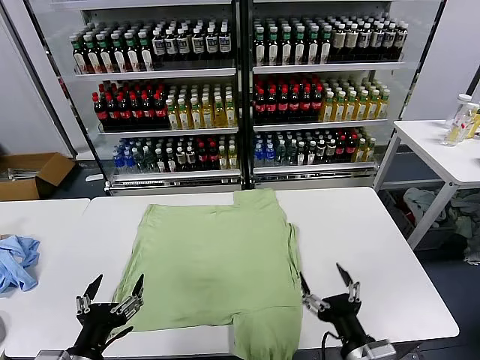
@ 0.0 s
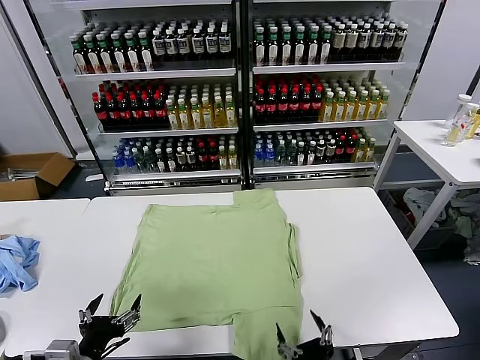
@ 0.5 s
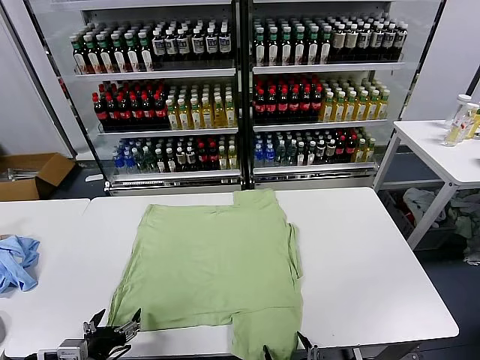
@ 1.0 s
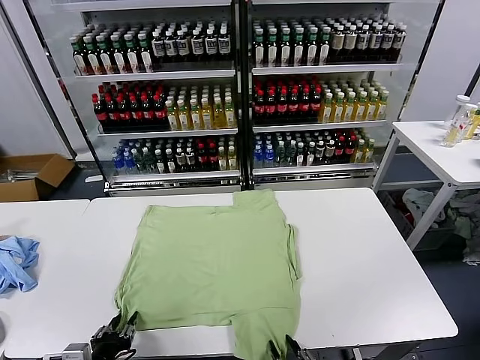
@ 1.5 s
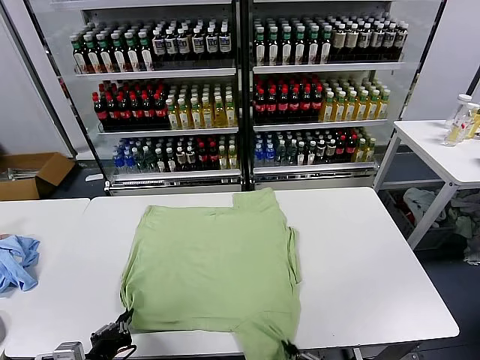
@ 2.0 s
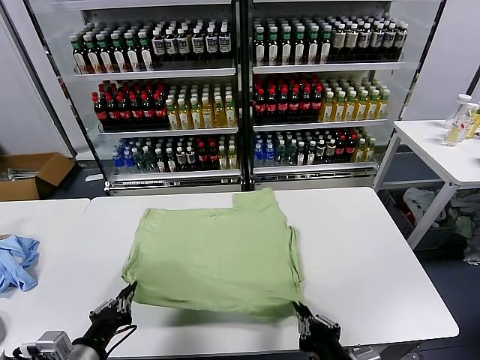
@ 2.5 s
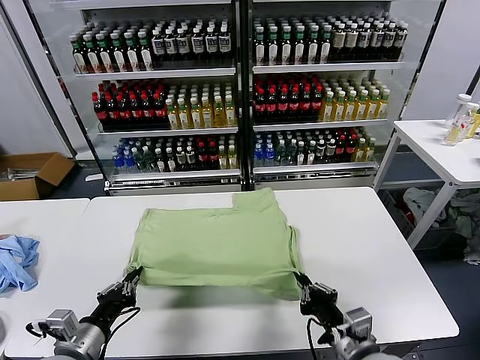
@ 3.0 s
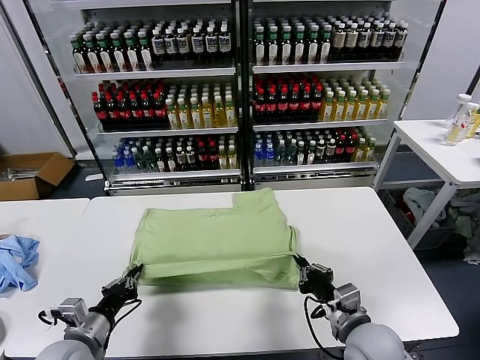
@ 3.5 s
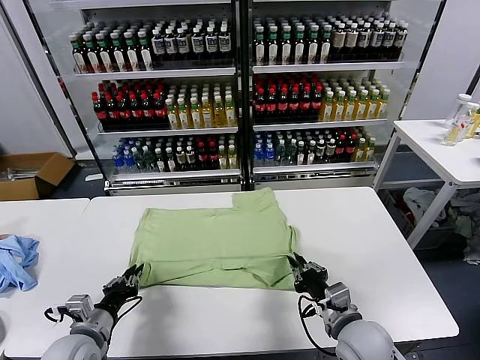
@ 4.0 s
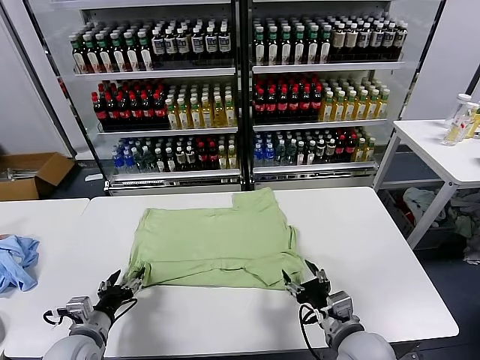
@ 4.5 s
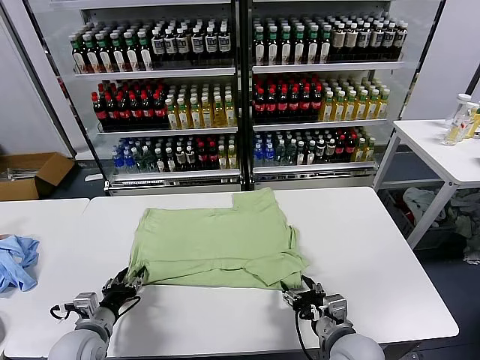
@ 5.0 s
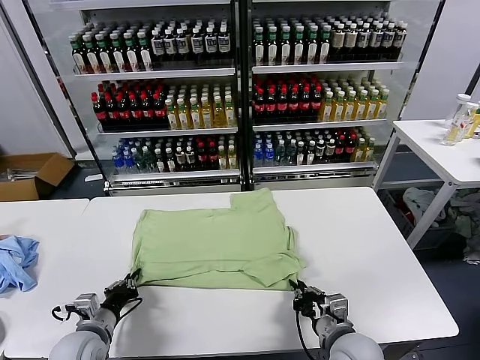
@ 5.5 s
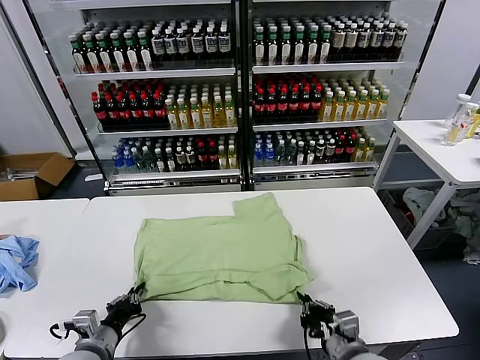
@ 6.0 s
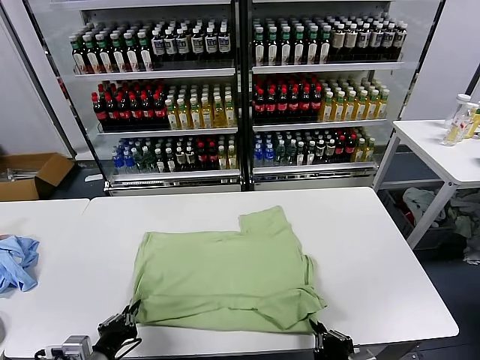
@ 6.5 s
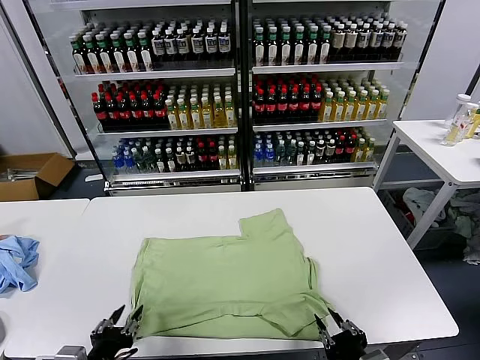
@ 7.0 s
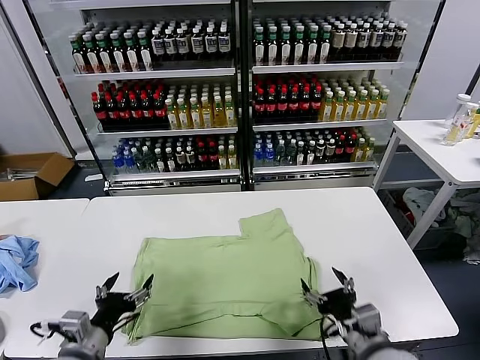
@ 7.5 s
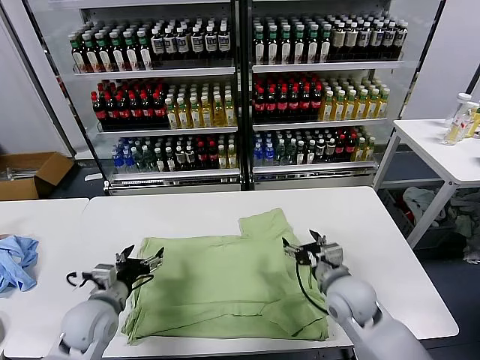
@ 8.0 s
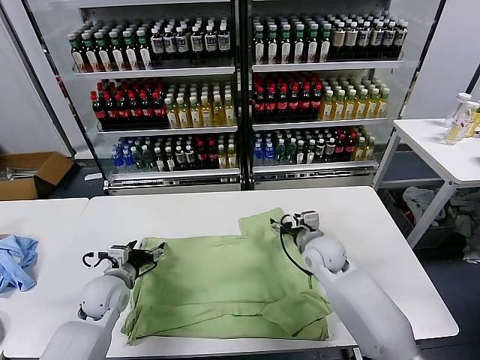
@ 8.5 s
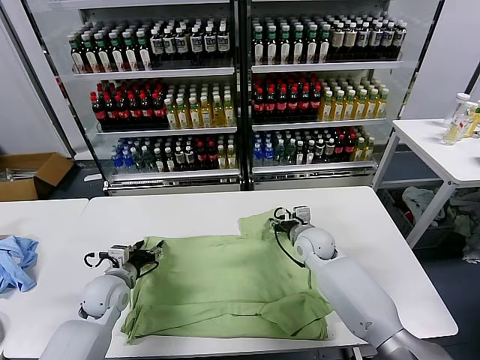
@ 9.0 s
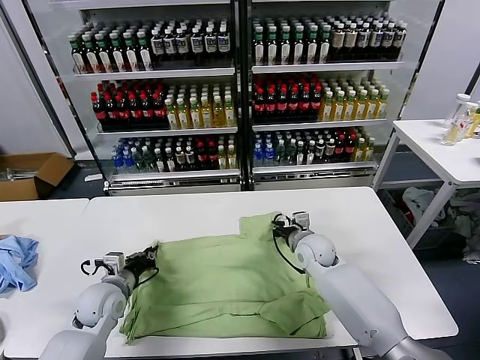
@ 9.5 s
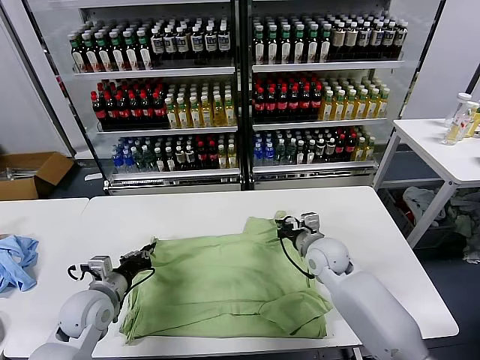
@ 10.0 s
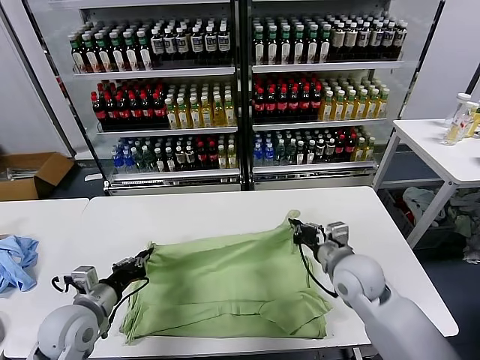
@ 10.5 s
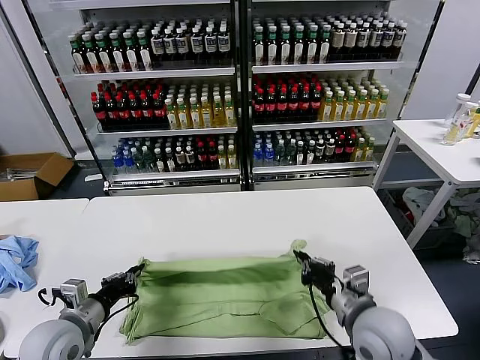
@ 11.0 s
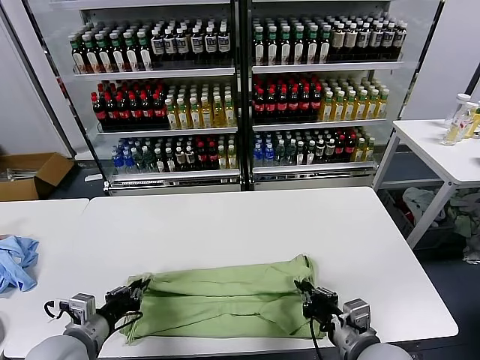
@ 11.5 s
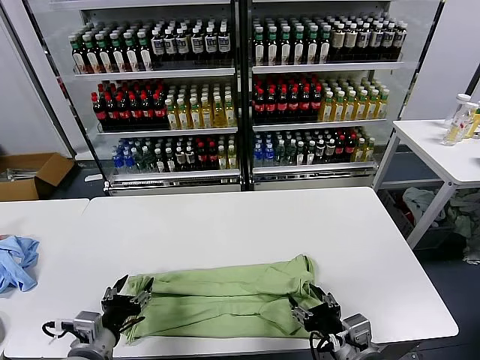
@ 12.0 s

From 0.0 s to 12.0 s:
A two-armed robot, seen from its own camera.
Task of the whole recording: fold and organize the clothes.
Step, from 0.0 s to 1.5 s: use both grippers simultaneously to clamp the lower edge of the clothing fabric.
Step, from 2.5 s to 4.0 s: use both grippers to drag the lower edge of the fabric forward and fold it over the upper edge.
Step, from 4.5 s to 7.0 s: Drag the clothes downward with both gripper.
Step, from 7.5 s to 9.5 s: use both grippers simultaneously to clamp the upper edge of the clothing fabric.
Step, from 10.0 s to 11.5 s: use both grippers to drag the upper edge of the fabric backward and fold it over the lower edge.
From 2.0 s to 4.0 s: The right gripper heads forward, covering about 15 cm. Meanwhile the left gripper travels forward by about 10 cm.
From 4.0 s to 6.0 s: The left gripper opens, then closes again. Meanwhile the right gripper moves backward, some 5 cm, and opens, then closes again.
From 6.0 s to 8.0 s: The left gripper shifts approximately 10 cm forward, and opens up. The right gripper goes about 15 cm forward, and opens its fingers.
From 8.0 s to 10.0 s: The left gripper closes up, while the right gripper travels forward by some 10 cm, and closes.
From 10.0 s to 12.0 s: The left gripper moves backward, approximately 15 cm, and opens its fingers, while the right gripper goes about 25 cm backward, and opens.

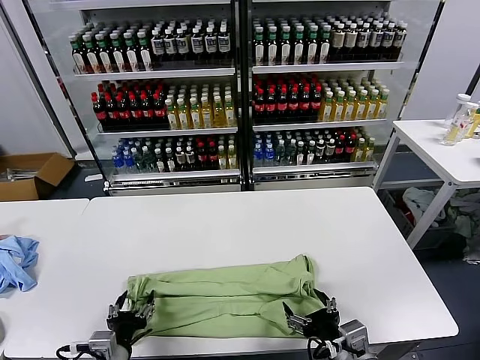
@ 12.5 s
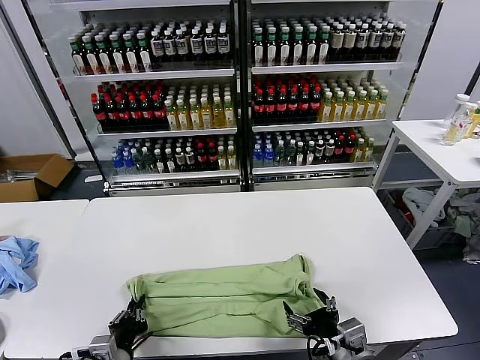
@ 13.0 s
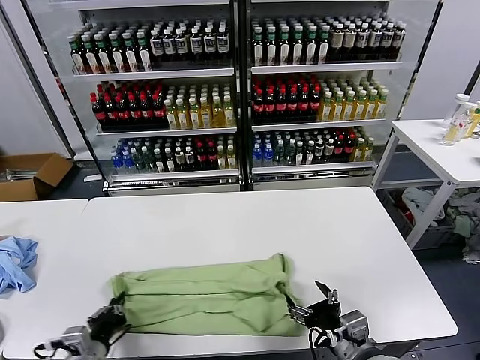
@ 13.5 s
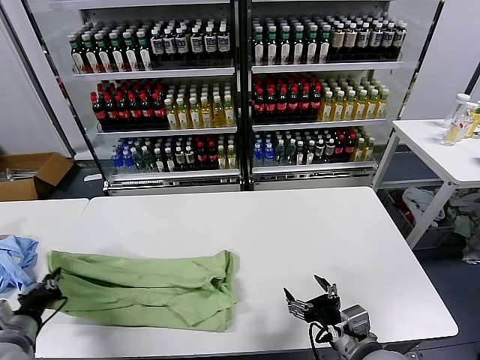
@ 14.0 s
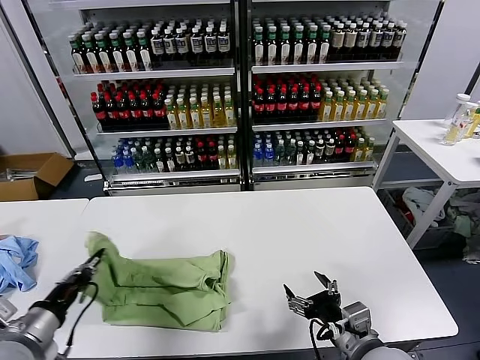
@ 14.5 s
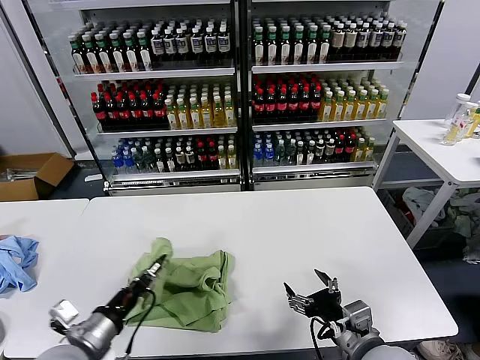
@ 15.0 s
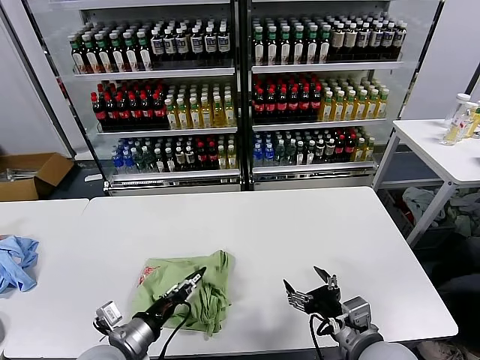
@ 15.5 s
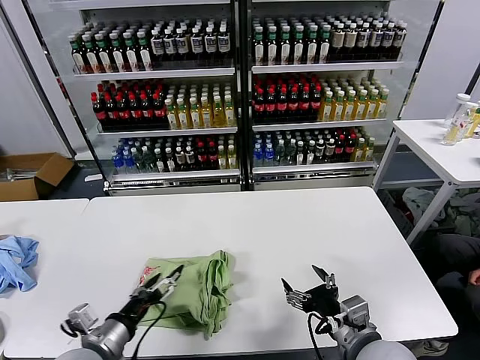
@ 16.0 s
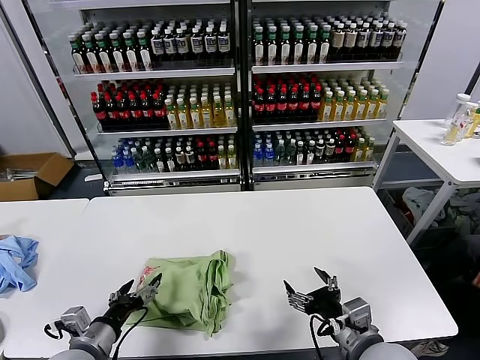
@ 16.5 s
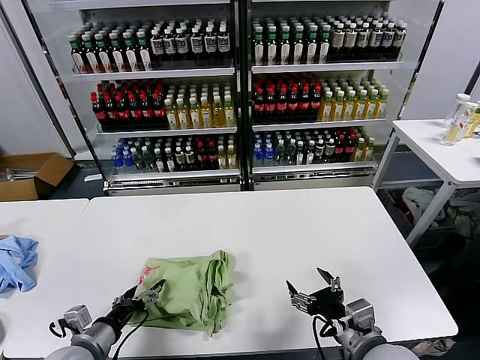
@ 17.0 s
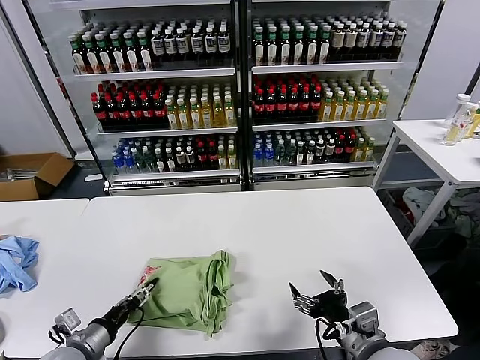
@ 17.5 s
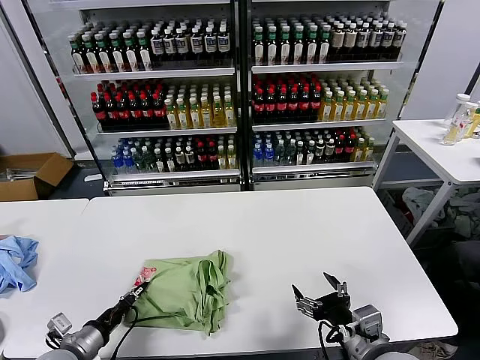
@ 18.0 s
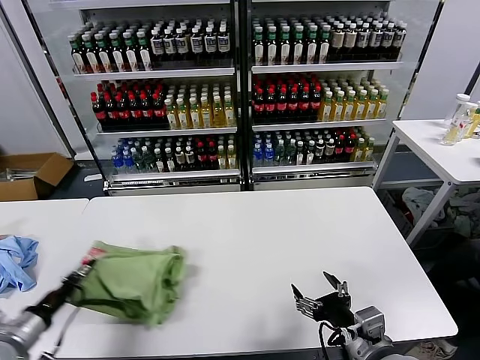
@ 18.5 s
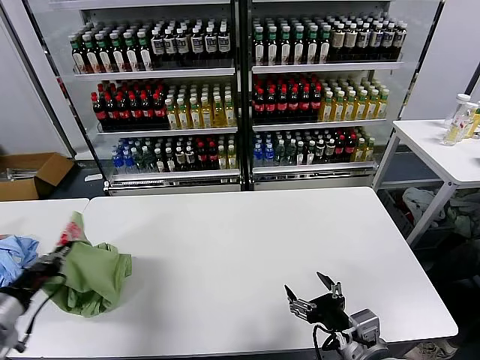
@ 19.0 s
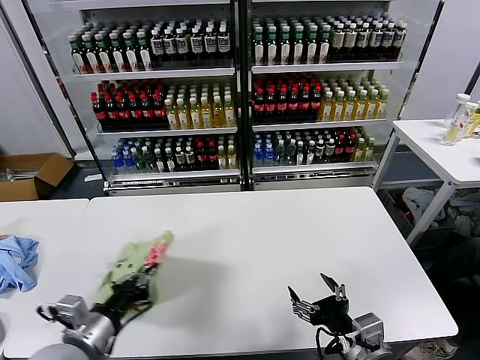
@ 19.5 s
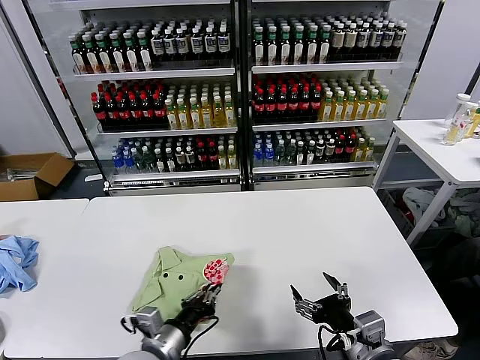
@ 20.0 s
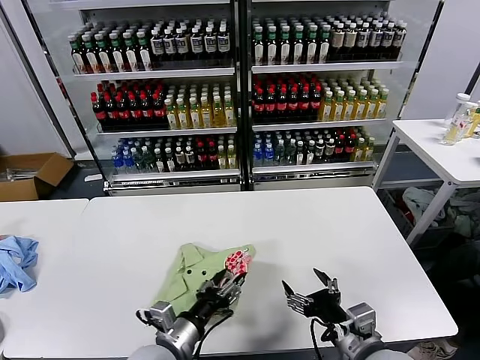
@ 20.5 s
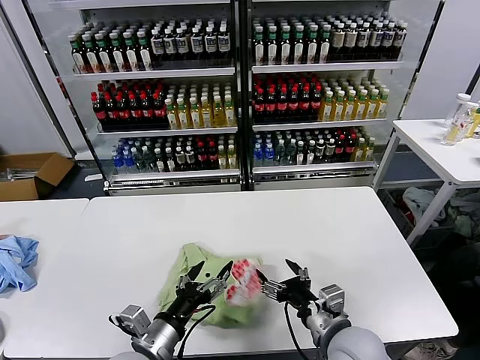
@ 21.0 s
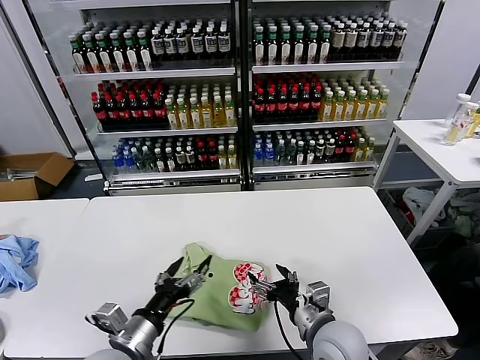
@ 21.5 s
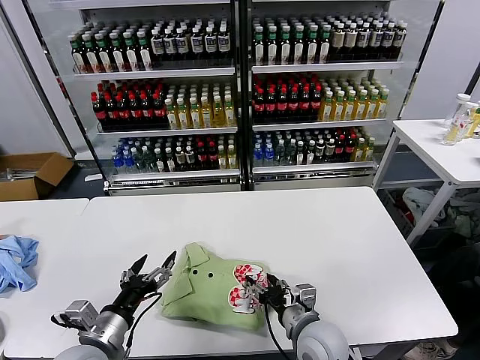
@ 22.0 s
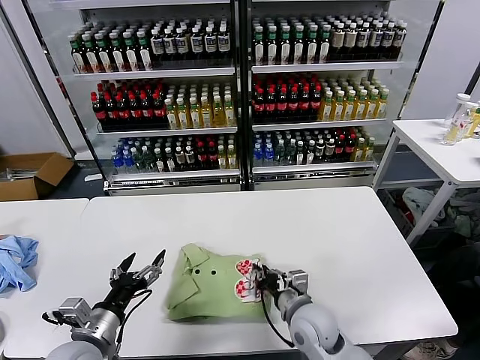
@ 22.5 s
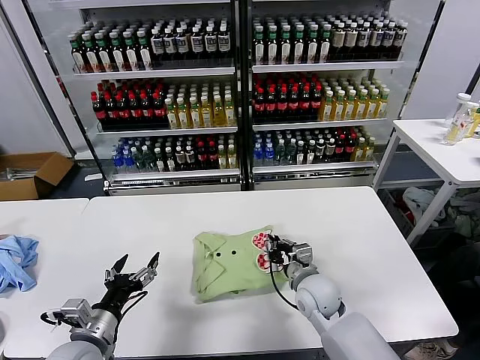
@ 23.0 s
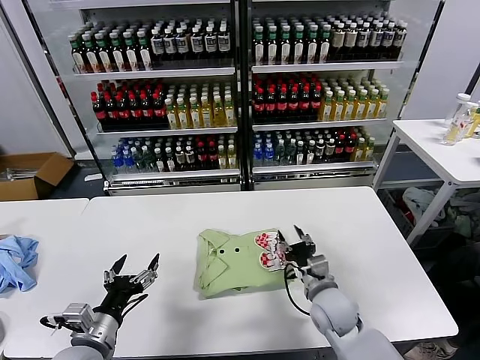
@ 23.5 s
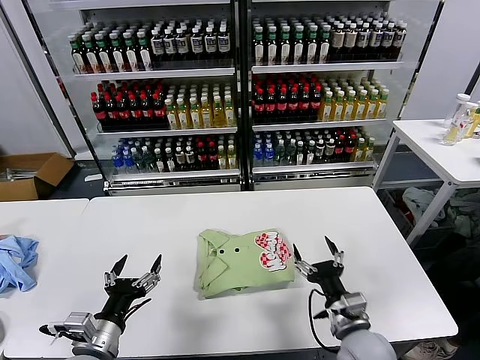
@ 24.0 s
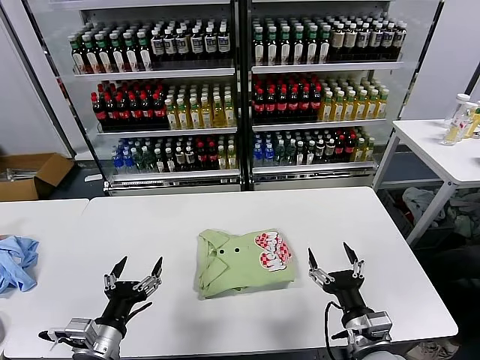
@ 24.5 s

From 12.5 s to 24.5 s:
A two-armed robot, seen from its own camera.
Task of the whole recording: fold and organize the clothes.
Step, from 13.5 s to 15.5 s: use the left gripper to drag the left edge of the fabric to the left and folds it over the right edge.
Step, from 16.0 s to 21.0 s: Flip the folded clothes over with left gripper.
Step, from 21.5 s to 23.0 s: Drag the clothes to the center of the table.
From 12.5 s to 14.5 s: The left gripper shifts about 15 cm to the left and upward, and closes its fingers.
From 14.5 s to 16.5 s: The left gripper moves to the right and downward, about 10 cm, and opens up.
From 16.5 s to 18.5 s: The left gripper moves to the left, roughly 10 cm, and closes its fingers.
From 18.5 s to 20.5 s: The left gripper is displaced to the right by roughly 30 cm, and opens.
From 20.5 s to 22.5 s: The right gripper is displaced forward, downward and to the left by some 15 cm, and closes. The left gripper shifts roughly 15 cm to the left, and opens its fingers.
From 22.5 s to 24.5 s: The right gripper heads to the right and backward, covering about 15 cm, and opens.
